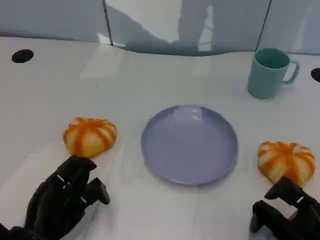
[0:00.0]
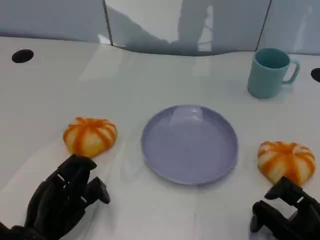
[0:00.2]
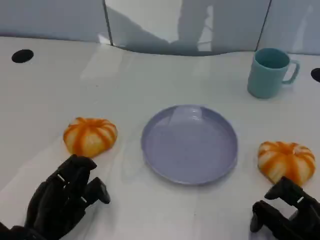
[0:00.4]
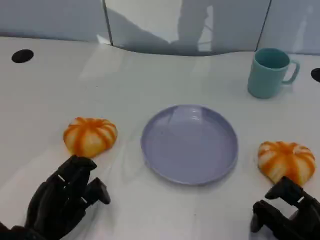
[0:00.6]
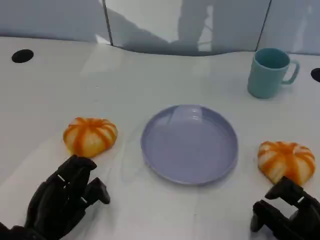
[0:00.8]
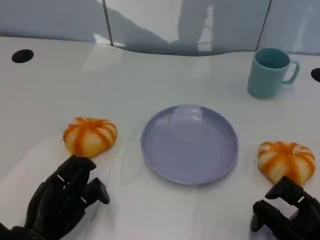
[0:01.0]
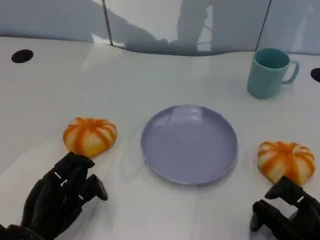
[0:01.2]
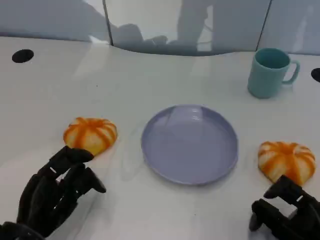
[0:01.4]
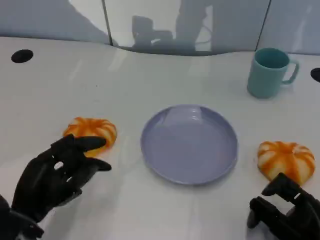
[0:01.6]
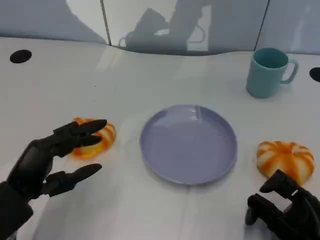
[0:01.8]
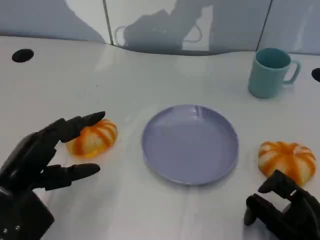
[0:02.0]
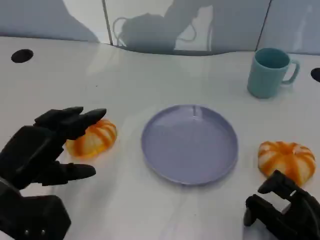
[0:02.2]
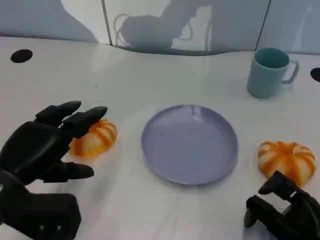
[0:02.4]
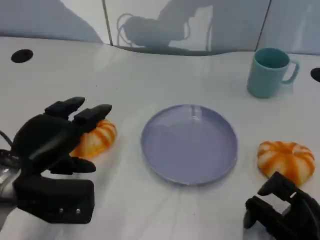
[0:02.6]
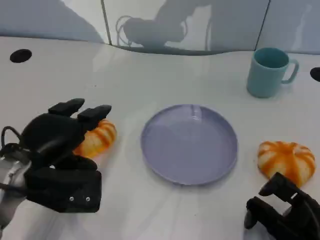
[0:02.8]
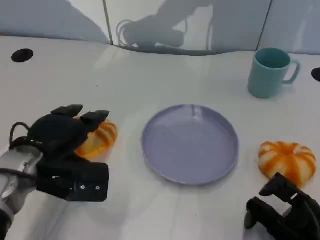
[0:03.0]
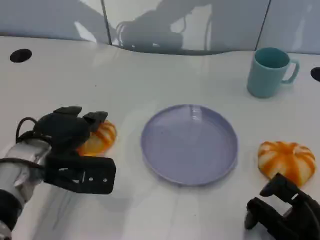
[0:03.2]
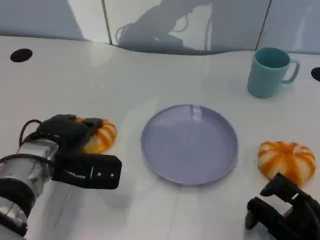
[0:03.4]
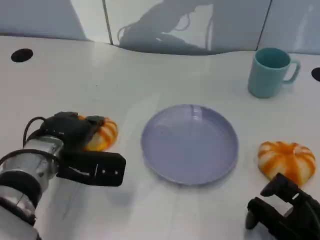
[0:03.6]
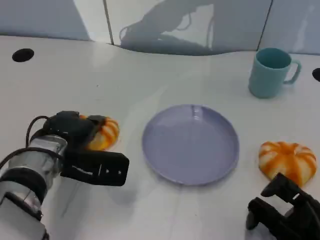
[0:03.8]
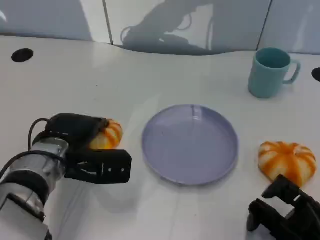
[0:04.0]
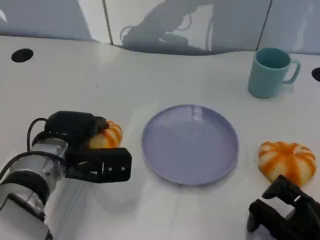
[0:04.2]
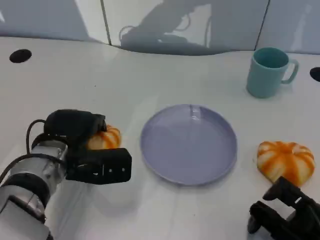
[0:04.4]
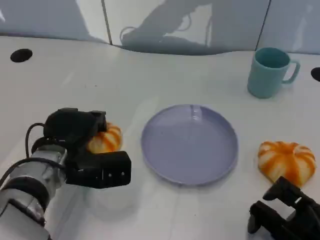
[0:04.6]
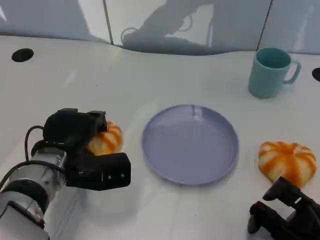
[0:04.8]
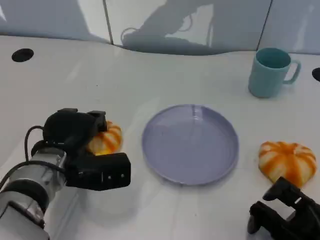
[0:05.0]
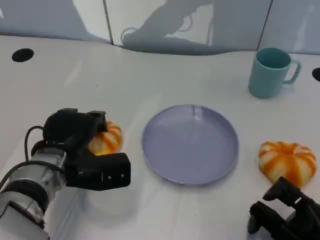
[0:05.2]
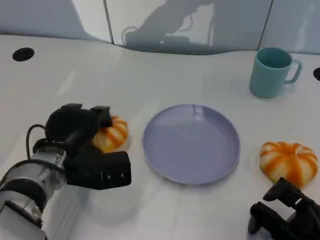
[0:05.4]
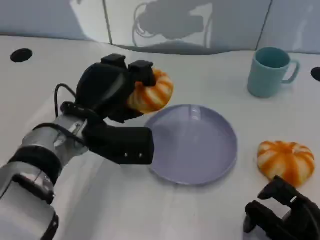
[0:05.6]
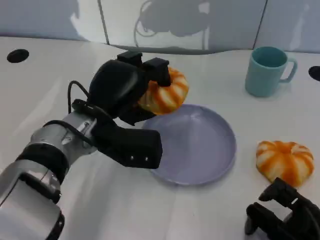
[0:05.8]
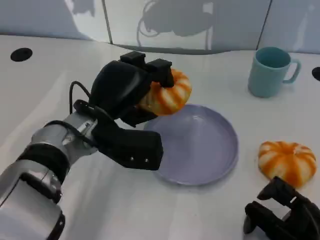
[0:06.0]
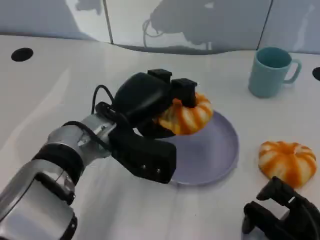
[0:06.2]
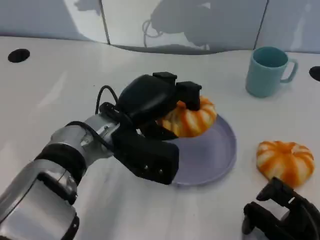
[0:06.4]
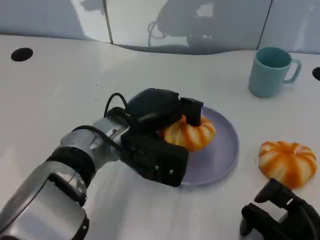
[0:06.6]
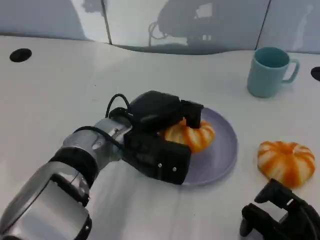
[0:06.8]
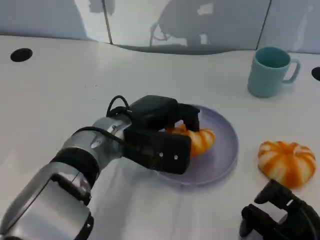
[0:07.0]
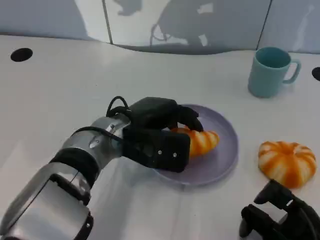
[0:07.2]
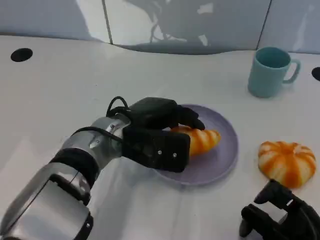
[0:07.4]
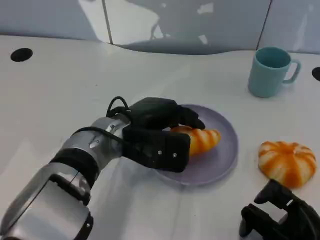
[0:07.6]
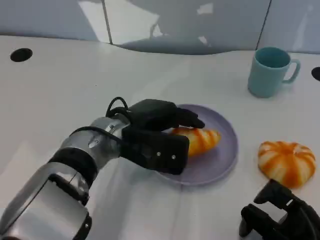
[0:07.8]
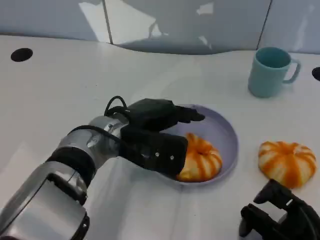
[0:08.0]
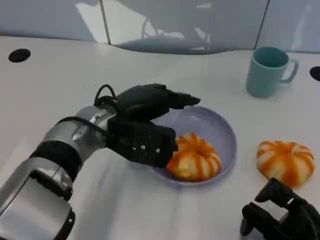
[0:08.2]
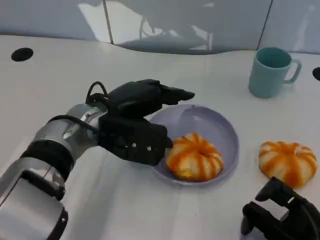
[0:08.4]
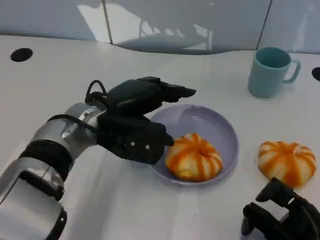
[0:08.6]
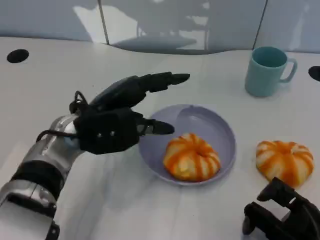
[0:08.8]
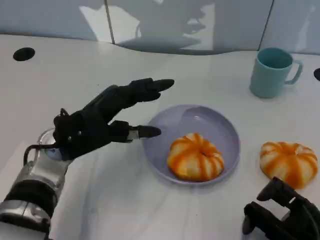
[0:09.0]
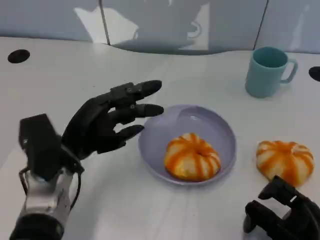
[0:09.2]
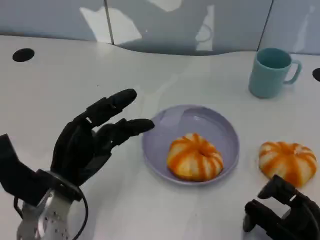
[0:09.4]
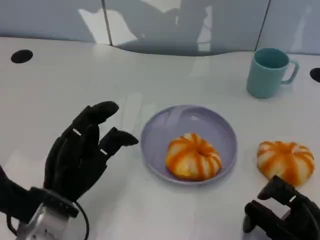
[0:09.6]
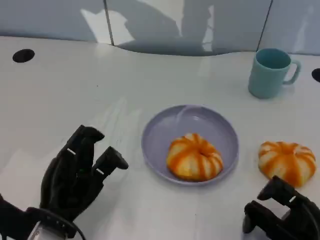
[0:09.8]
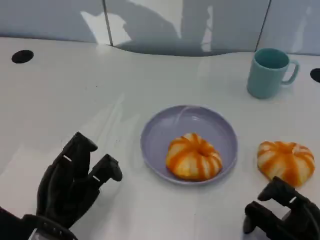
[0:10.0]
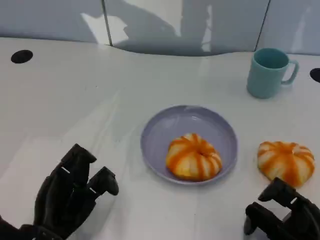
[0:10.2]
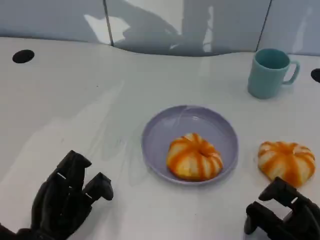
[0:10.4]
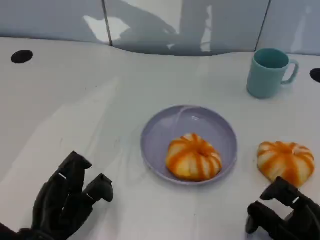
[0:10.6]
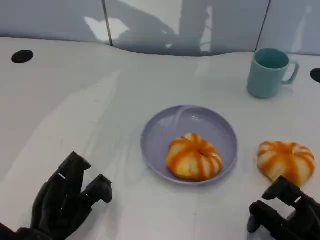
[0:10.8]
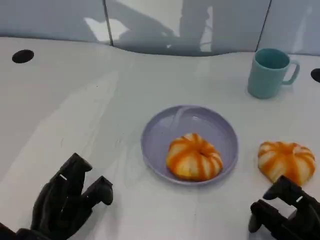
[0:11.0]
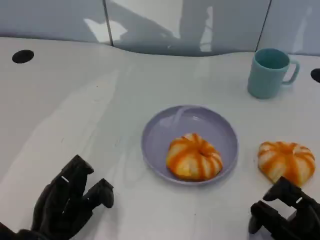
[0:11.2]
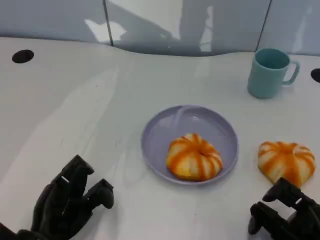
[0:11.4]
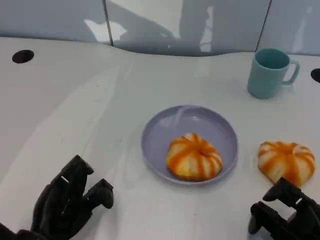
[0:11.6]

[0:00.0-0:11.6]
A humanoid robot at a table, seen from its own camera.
Task of the whole recording: Grasp the bread from the table and place it into the plate.
0:00.0 to 0:01.4: The hands move only a little.
0:01.4 to 0:02.8: The left hand travels upward and forward by about 10 cm.
0:02.8 to 0:04.4: The left hand ends up roughly 5 cm from where it was.
0:04.4 to 0:05.8: The left hand moves to the right and upward, some 10 cm.
0:07.2 to 0:08.8: The left hand heads to the left, covering about 5 cm.
0:08.8 to 0:10.2: The left hand heads backward, downward and to the left, covering about 15 cm.
0:10.2 to 0:11.6: The hands move only a little.
